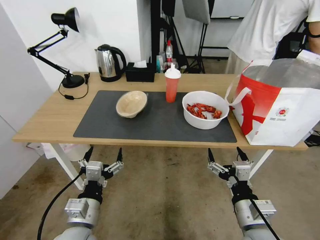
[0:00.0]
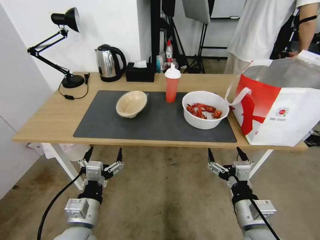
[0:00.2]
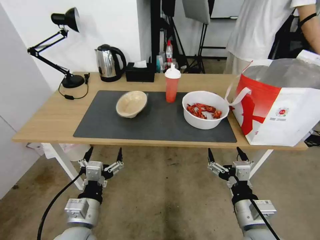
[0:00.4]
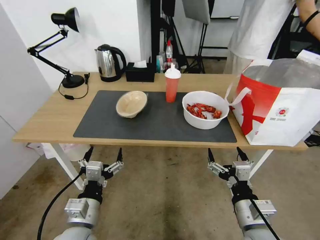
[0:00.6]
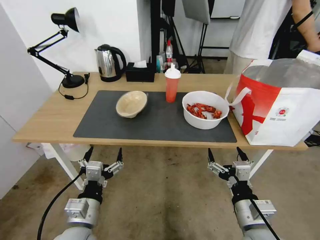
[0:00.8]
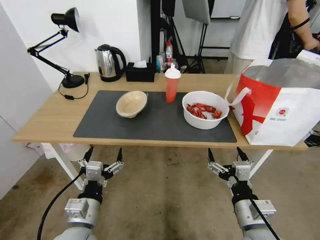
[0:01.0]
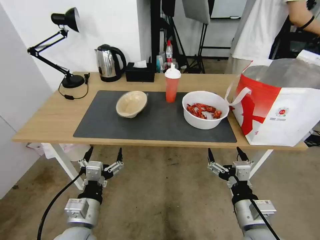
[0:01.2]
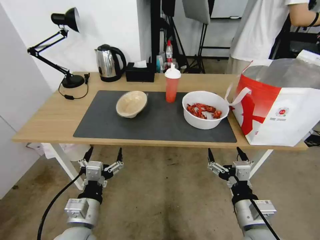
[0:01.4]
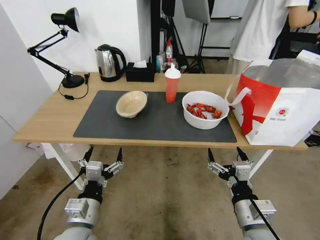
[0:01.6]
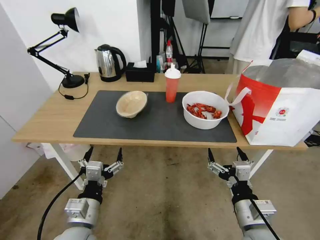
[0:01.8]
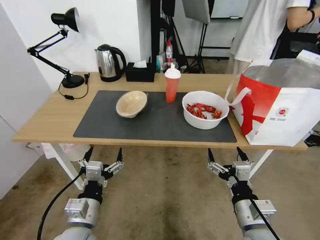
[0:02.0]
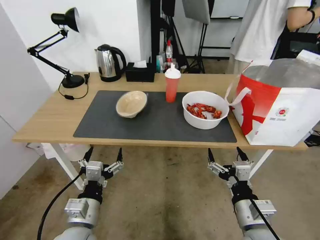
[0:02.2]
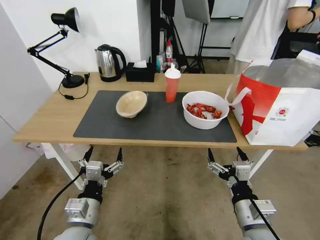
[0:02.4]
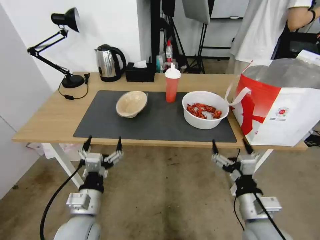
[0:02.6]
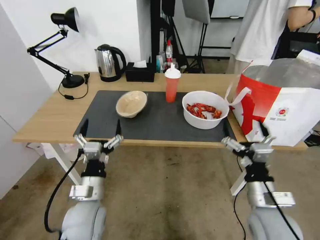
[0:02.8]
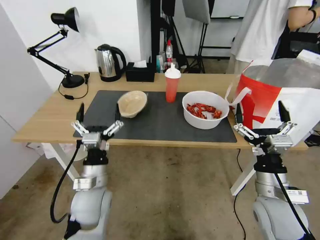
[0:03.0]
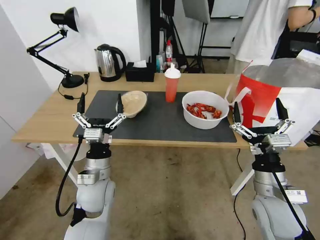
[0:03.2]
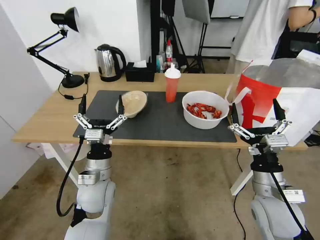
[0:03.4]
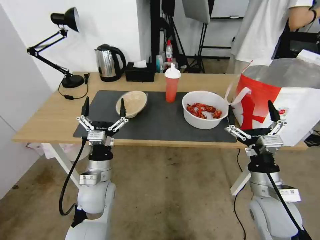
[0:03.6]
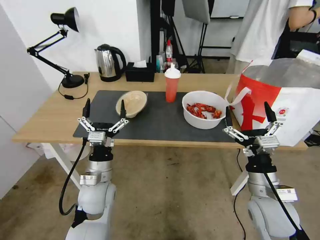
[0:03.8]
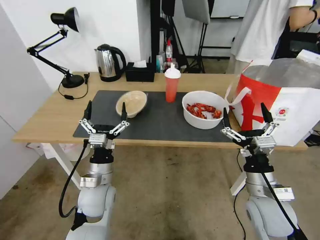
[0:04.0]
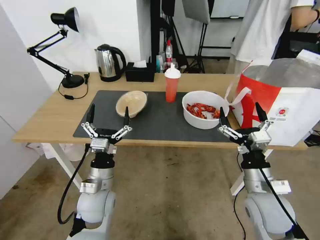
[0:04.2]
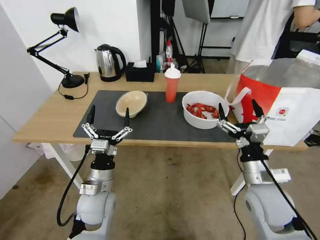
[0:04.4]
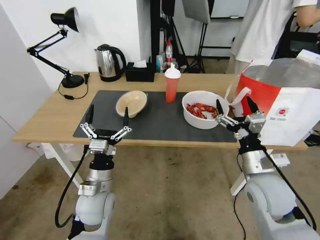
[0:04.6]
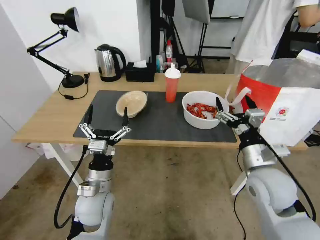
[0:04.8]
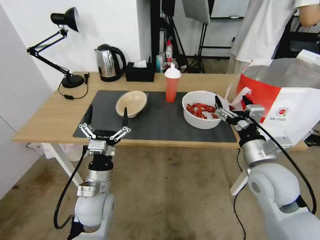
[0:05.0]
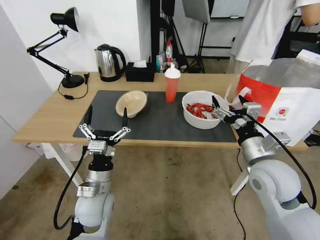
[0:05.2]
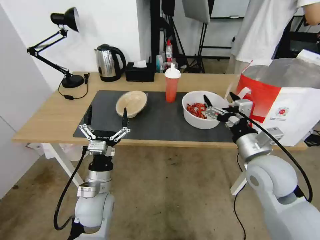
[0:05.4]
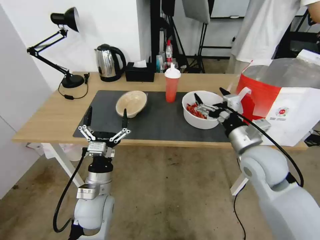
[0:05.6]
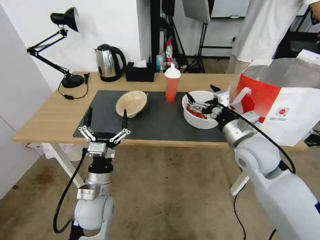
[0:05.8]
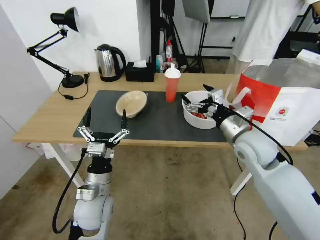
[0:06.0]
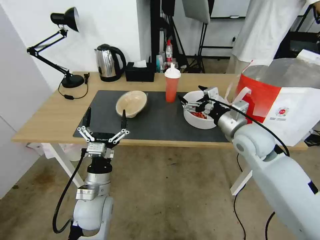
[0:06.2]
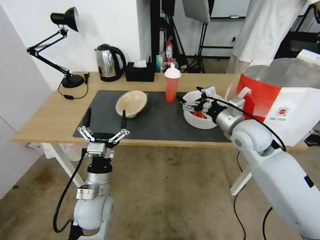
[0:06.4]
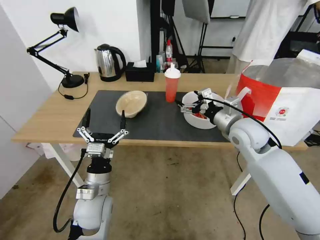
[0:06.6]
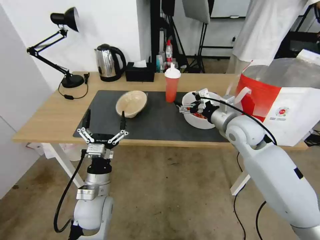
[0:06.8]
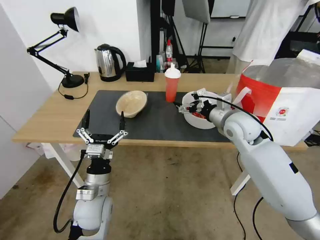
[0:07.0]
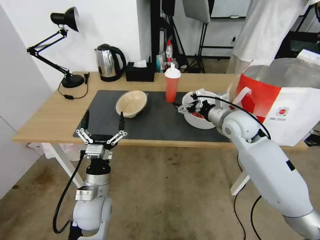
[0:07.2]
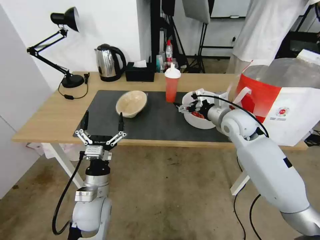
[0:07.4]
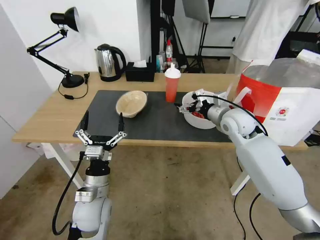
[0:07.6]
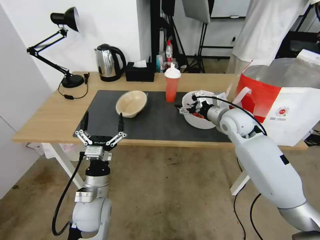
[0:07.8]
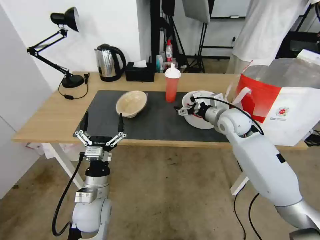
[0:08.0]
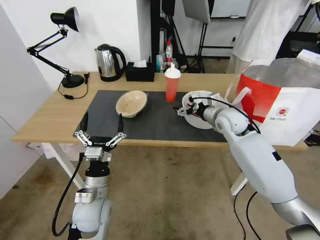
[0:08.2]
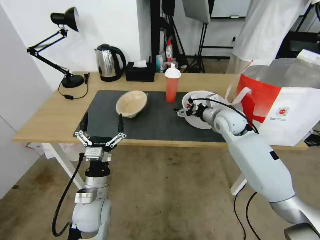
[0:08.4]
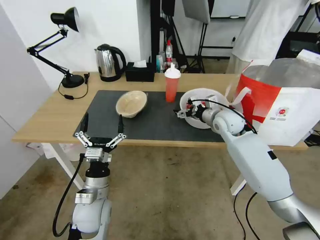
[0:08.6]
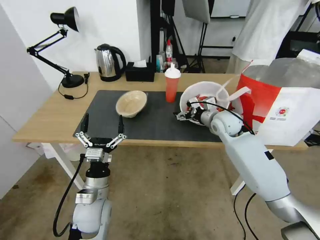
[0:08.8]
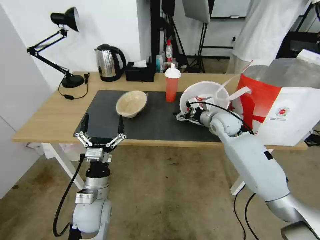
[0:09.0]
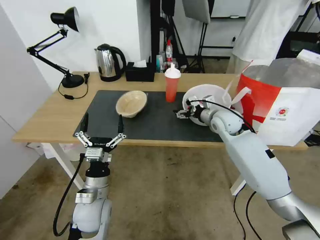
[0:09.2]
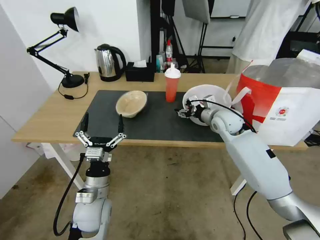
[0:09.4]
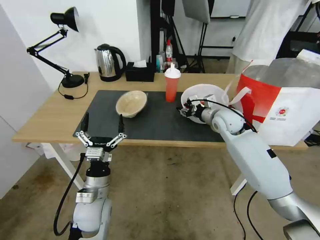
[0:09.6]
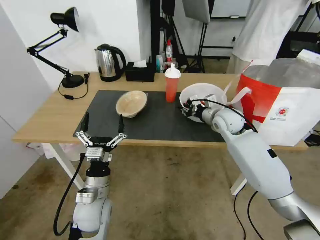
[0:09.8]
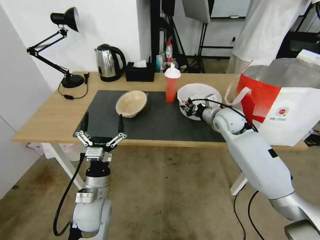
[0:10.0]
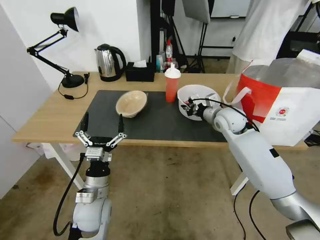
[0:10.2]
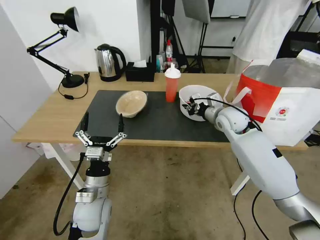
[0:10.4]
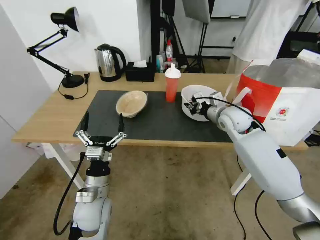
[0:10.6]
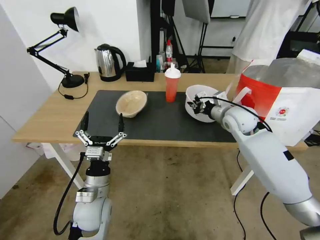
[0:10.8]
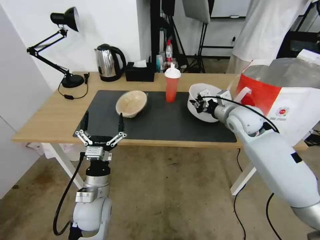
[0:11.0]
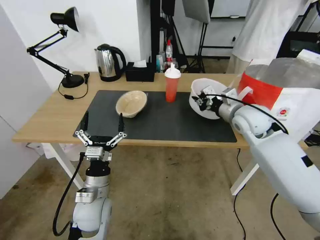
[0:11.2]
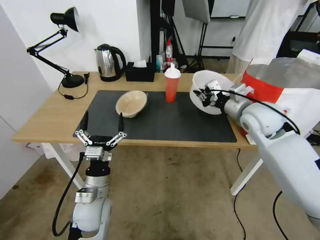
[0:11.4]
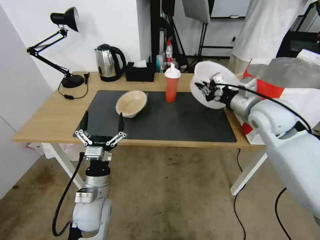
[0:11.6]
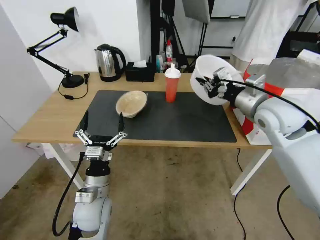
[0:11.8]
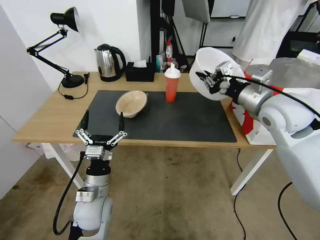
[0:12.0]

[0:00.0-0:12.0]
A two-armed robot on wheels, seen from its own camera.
Task of the whole recording: Pick up the trash from the table and place it into the takeout bag.
0:01.6 to 0:03.0: The right gripper travels forward by approximately 5 cm. The left gripper goes roughly 10 cm forward.
0:03.0 to 0:04.4: The grippers stay close to where they were, moving slightly.
0:04.4 to 0:06.0: The right gripper moves forward and upward, some 15 cm.
0:06.0 to 0:07.6: The right gripper travels forward by about 10 cm.
0:07.6 to 0:09.0: The right gripper changes place by roughly 5 cm.
0:09.0 to 0:10.4: The right gripper closes.
0:10.4 to 0:12.0: The right gripper shifts roughly 15 cm upward and backward.

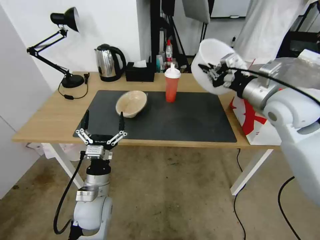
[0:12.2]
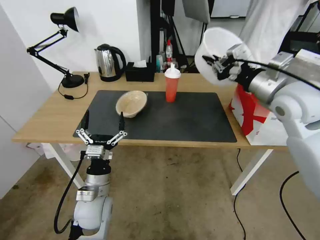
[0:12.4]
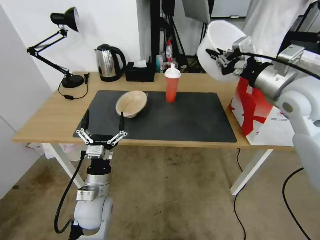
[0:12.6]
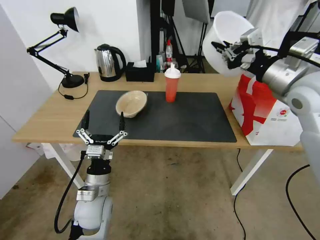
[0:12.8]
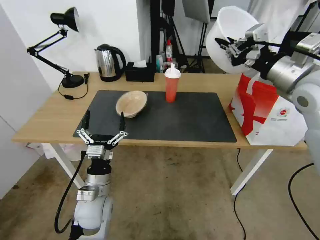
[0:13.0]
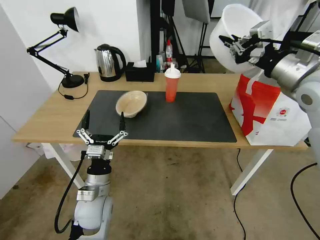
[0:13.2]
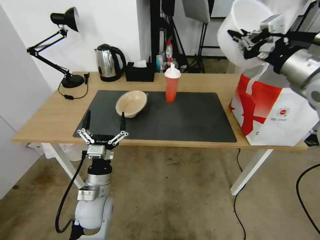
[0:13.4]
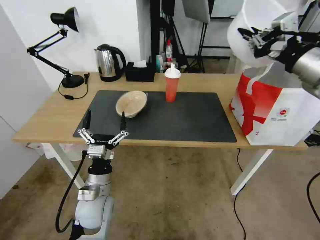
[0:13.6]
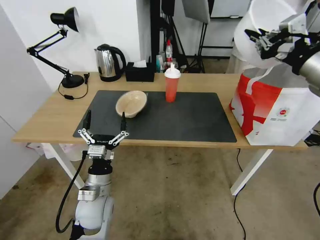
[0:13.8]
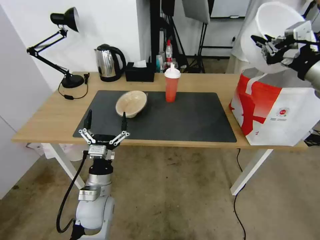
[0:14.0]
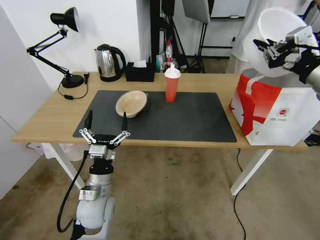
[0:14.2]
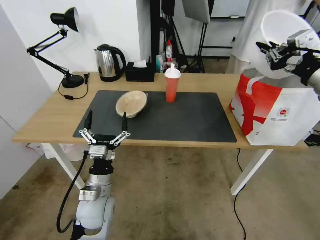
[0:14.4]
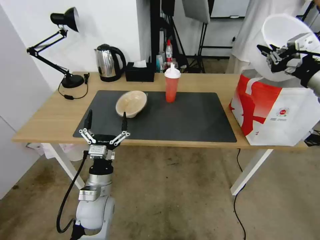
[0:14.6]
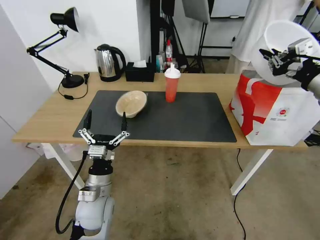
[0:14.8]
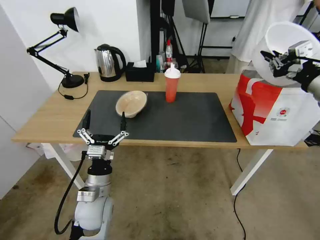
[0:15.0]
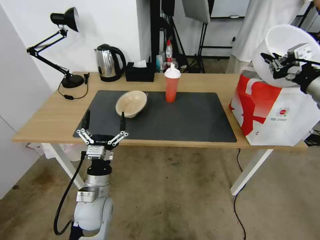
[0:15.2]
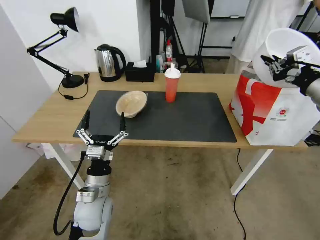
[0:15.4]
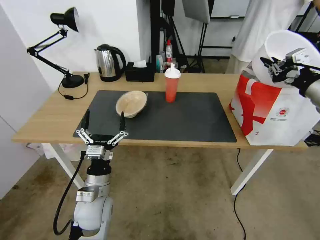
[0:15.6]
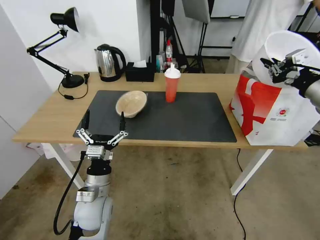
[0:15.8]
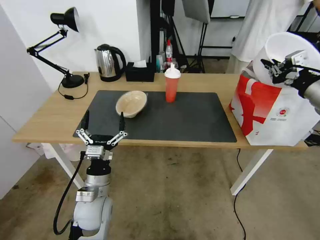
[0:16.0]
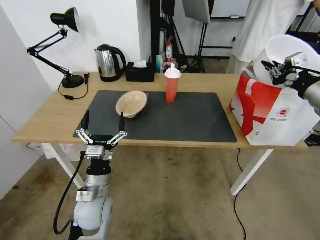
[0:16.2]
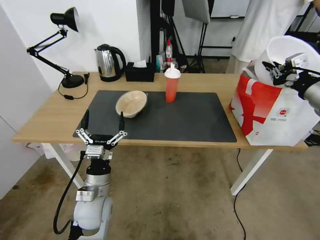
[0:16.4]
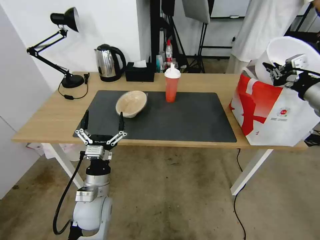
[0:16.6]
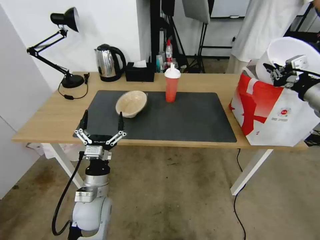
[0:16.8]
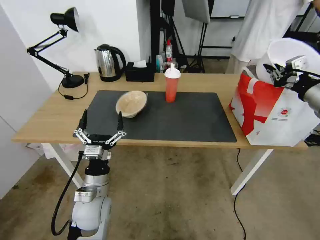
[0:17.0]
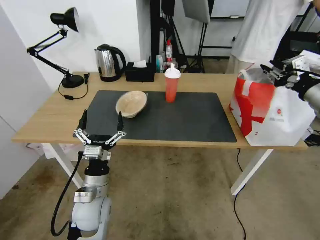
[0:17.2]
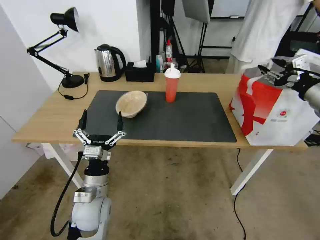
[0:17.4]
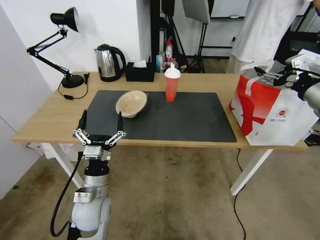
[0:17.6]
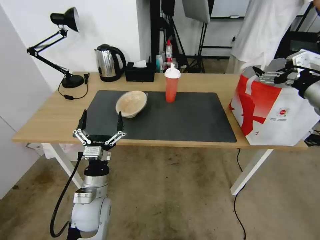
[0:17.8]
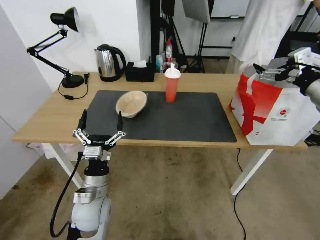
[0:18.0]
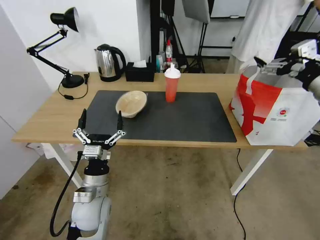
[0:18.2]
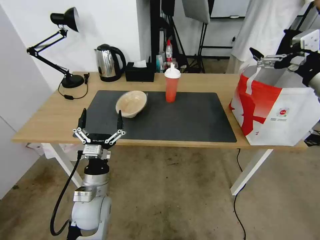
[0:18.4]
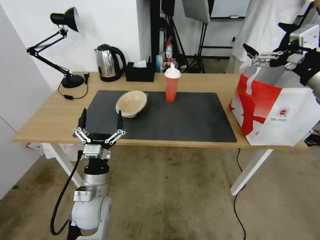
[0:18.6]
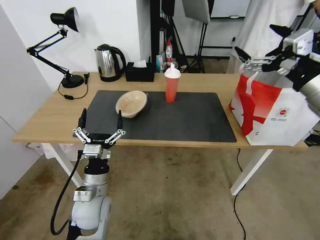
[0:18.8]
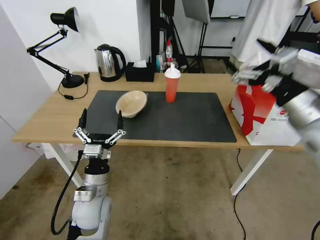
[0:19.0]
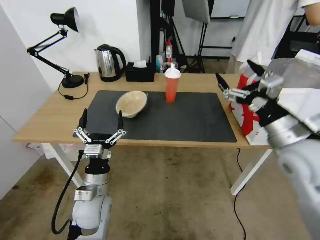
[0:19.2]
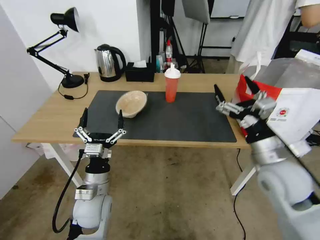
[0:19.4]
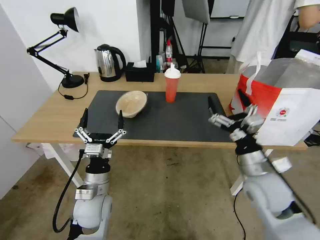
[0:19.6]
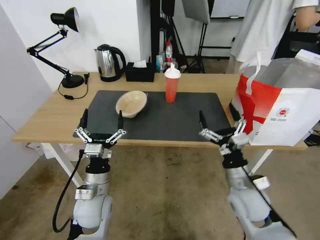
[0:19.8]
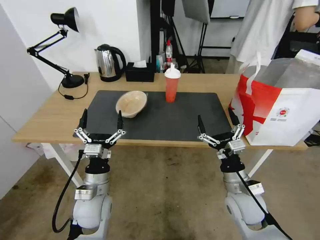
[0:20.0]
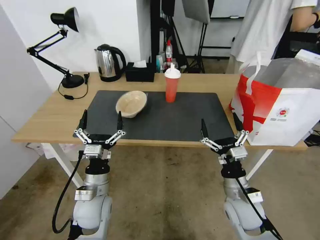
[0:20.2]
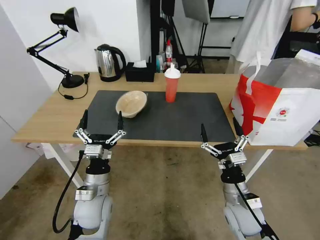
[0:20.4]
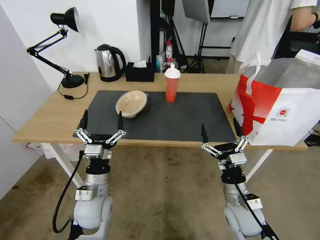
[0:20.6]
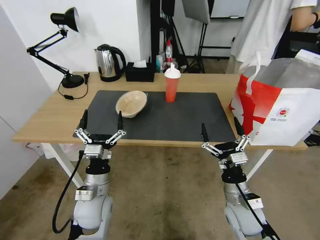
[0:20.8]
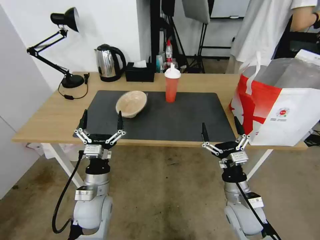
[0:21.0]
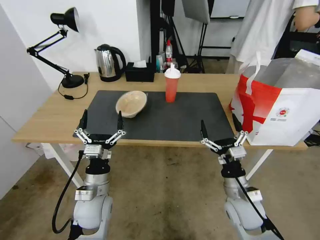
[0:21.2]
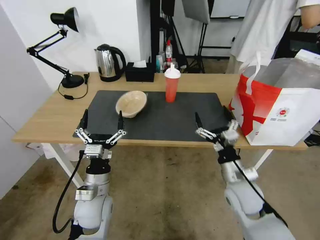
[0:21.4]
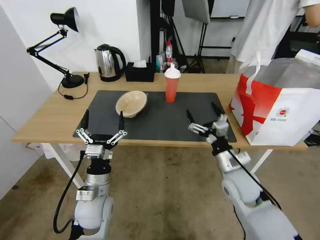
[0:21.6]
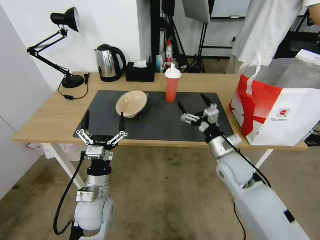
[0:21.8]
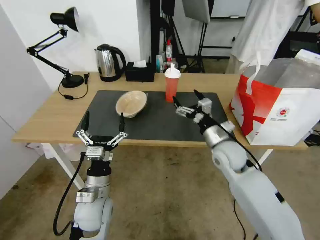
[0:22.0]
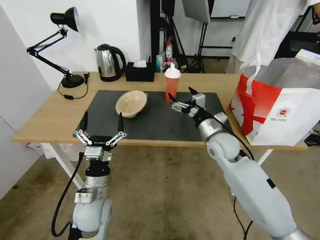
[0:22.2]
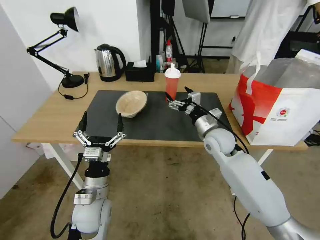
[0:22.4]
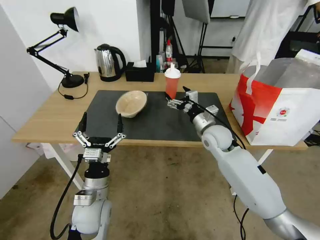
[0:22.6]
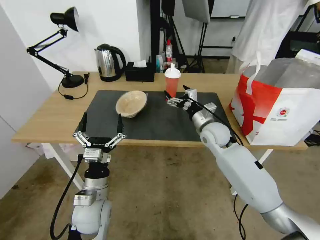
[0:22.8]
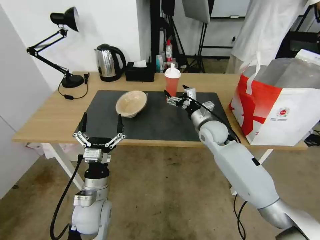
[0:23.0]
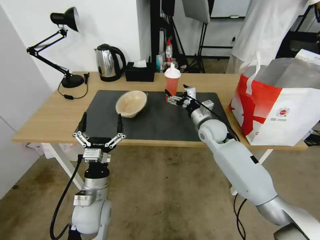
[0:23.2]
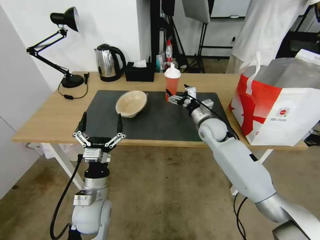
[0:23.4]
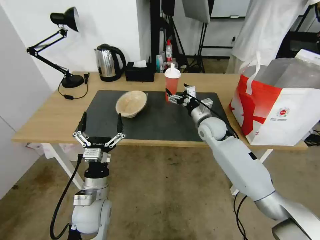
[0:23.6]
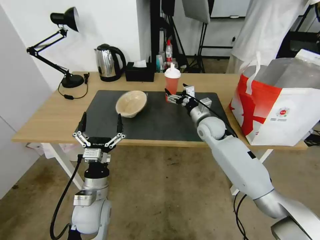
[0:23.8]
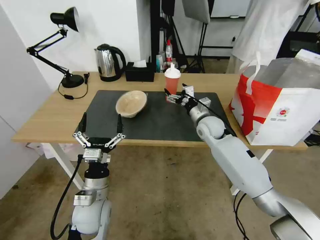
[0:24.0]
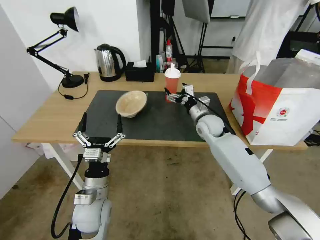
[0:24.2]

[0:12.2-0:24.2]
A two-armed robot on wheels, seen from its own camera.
Task of the whole recording: Pick up the trash from the table and place it into the takeout bag.
0:12.2 to 0:13.8: The right gripper moves to the right and upward, some 10 cm.
0:13.8 to 0:15.2: The right gripper is displaced downward and to the right by about 5 cm.
0:15.2 to 0:16.6: There are only small adjustments of the grippers.
0:16.6 to 0:18.2: The right gripper opens its fingers.
0:18.2 to 0:19.8: The right gripper shifts some 30 cm downward and to the left.
0:19.8 to 0:21.2: There are only small adjustments of the grippers.
0:21.2 to 0:22.6: The right gripper moves forward and upward, about 25 cm.
0:22.6 to 0:24.2: The right gripper moves forward, approximately 5 cm.
